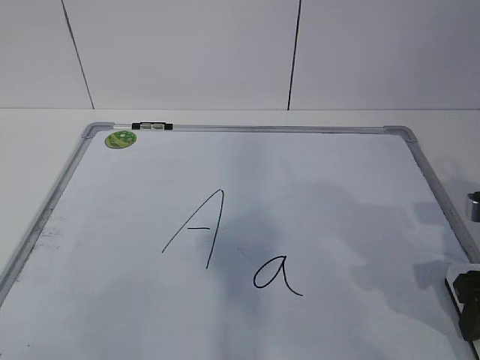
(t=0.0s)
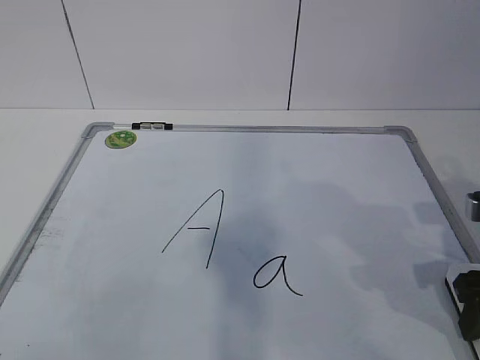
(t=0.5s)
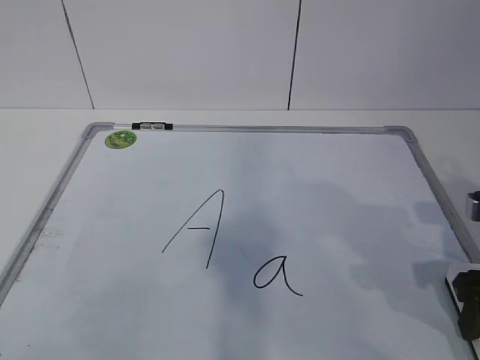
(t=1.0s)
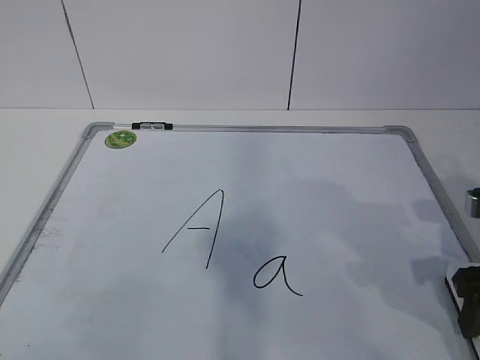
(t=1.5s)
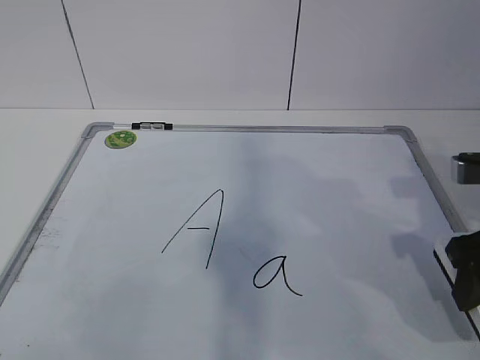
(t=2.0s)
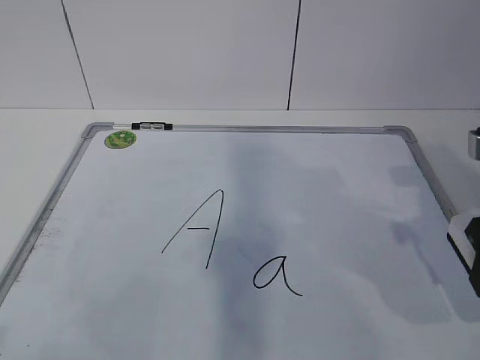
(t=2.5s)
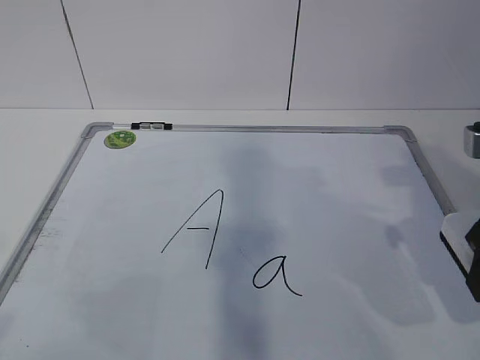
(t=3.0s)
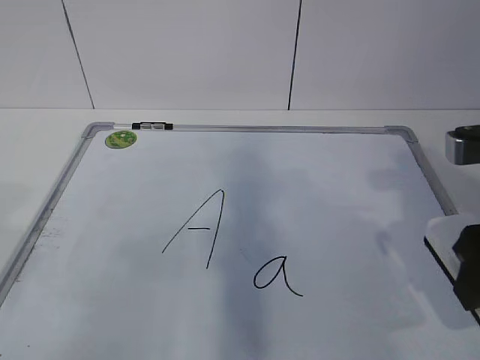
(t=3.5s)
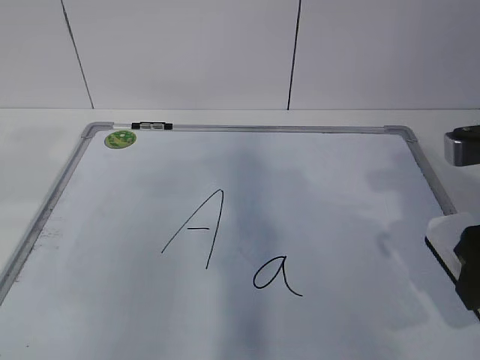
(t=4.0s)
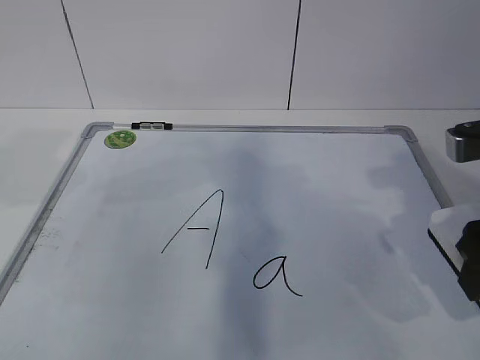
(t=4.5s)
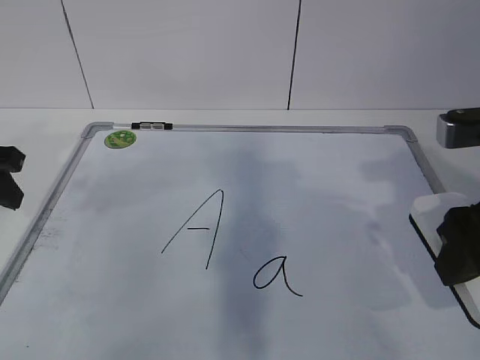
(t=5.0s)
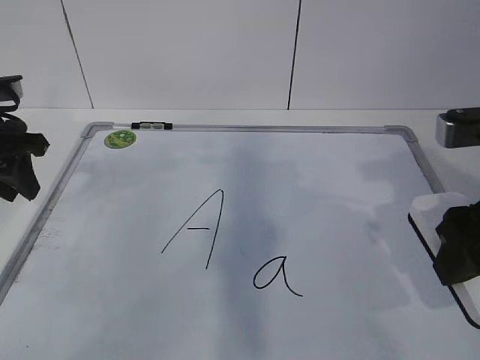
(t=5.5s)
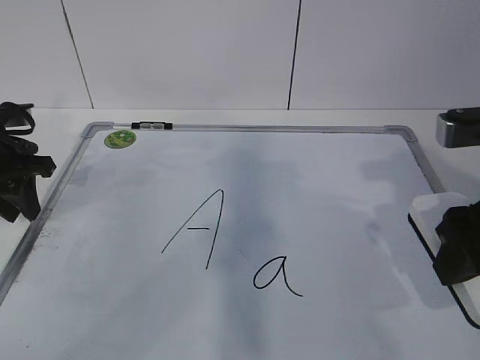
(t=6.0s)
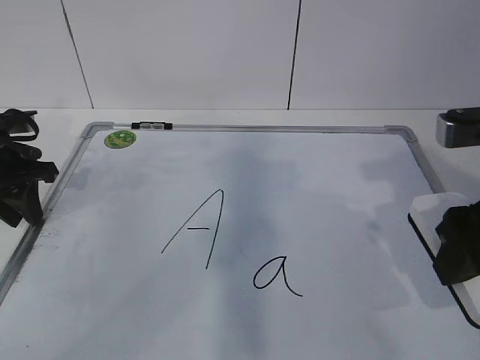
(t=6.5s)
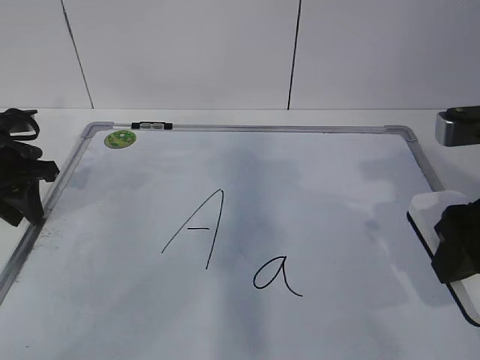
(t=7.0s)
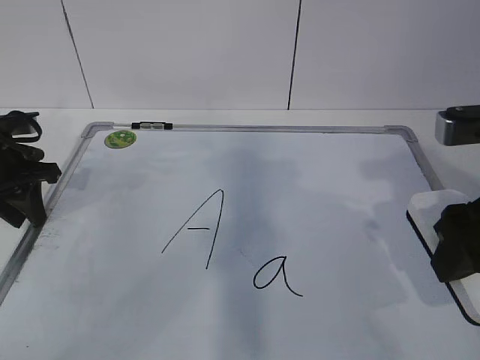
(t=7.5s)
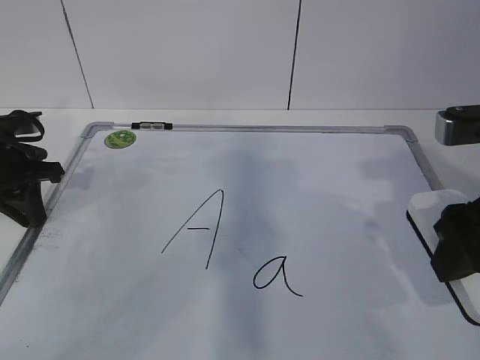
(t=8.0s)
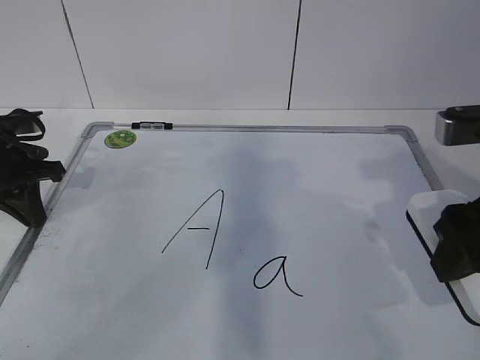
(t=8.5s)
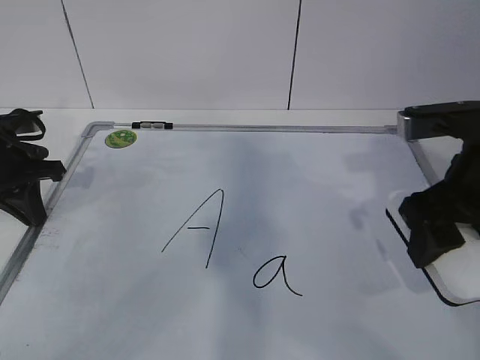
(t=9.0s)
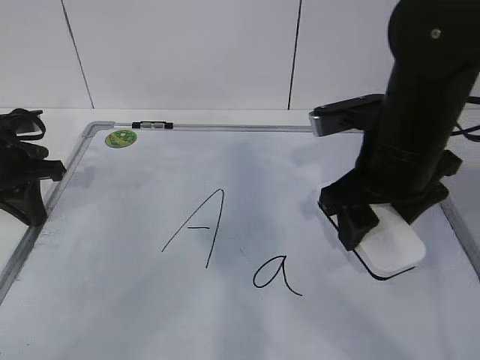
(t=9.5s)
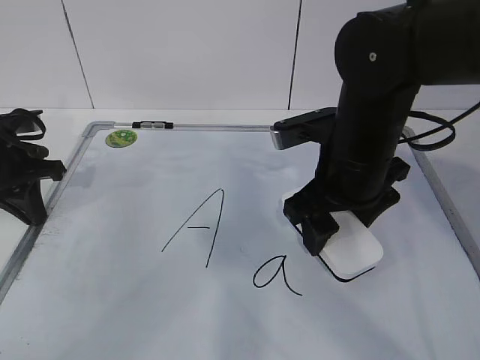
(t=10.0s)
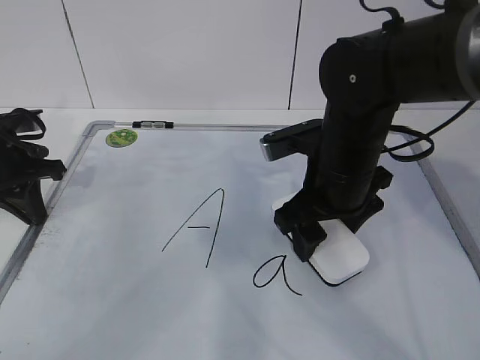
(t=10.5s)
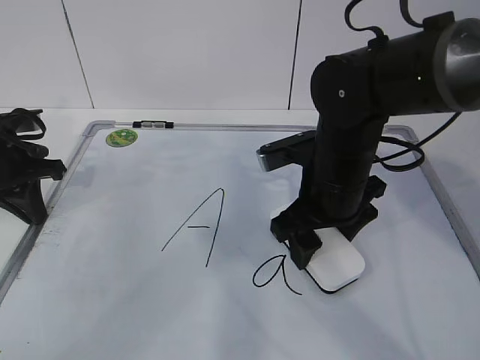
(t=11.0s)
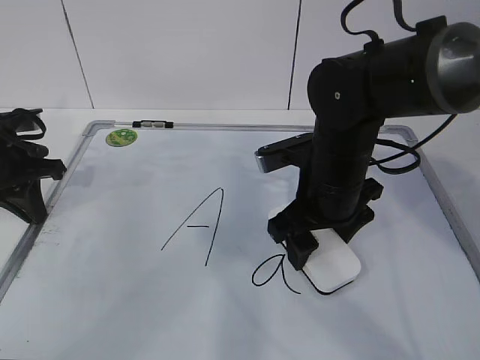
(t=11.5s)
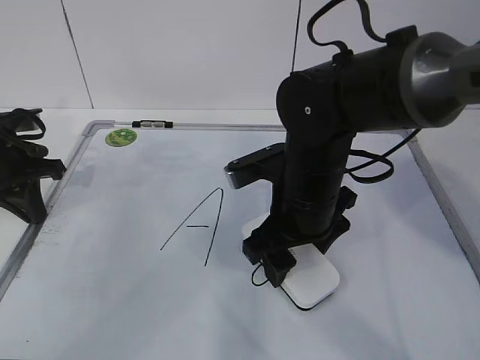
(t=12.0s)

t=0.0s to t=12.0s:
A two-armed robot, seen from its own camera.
Task of the whole recording: pick up the eraser on the blackboard and erase the letter "a".
Step, t=0.0s to t=5.0s: Hold the drawing board steady with your left hand.
Step, t=6.0s to t=10.5s: Erase the letter a with your right hand.
t=0.0s to t=2.0s: The grippers move only a little.
t=2.0s to t=4.0s: The right gripper ends up some 5 cm from where it was.
t=4.0s to t=6.0s: The left gripper moves forward and downward, roughly 25 cm.
t=6.0s to t=8.0s: The left gripper closes.
t=8.0s to t=10.0s: The right gripper travels to the left and forward by some 15 cm. Meanwhile the left gripper closes.
t=10.0s to t=12.0s: The right gripper shifts by some 5 cm.

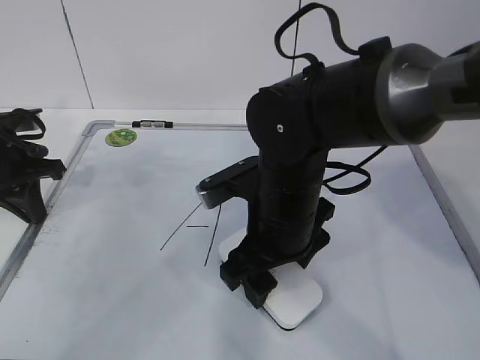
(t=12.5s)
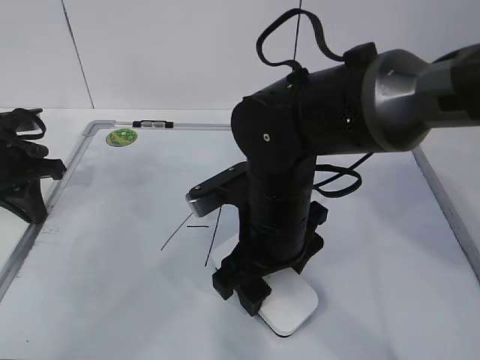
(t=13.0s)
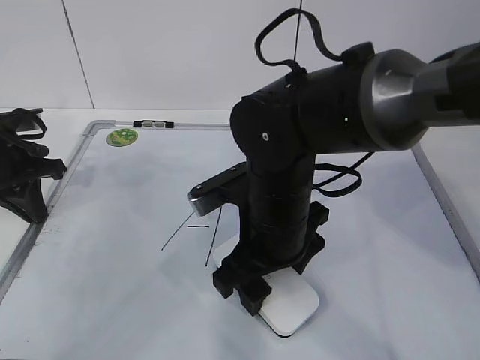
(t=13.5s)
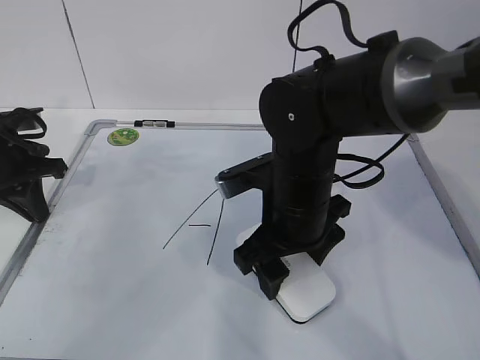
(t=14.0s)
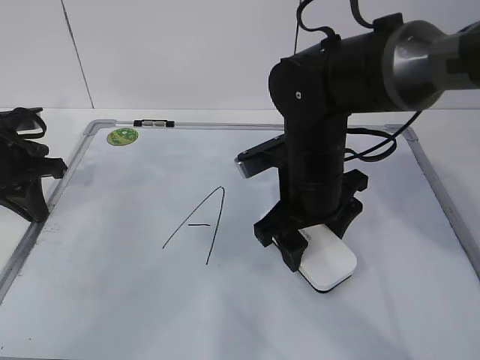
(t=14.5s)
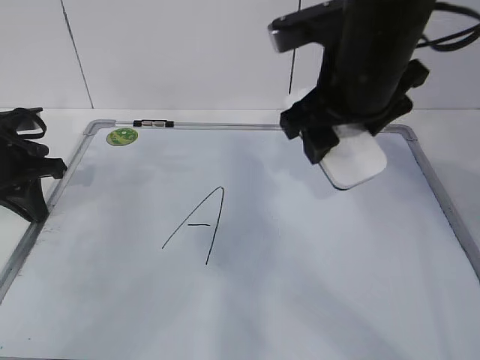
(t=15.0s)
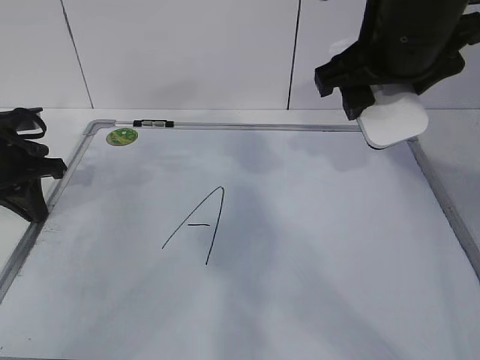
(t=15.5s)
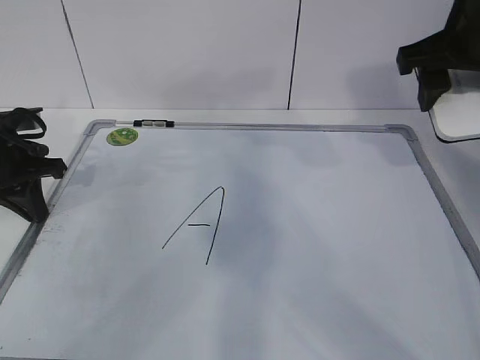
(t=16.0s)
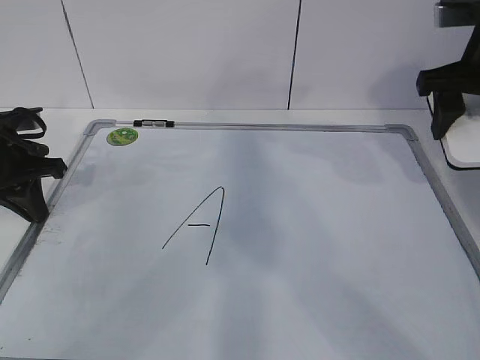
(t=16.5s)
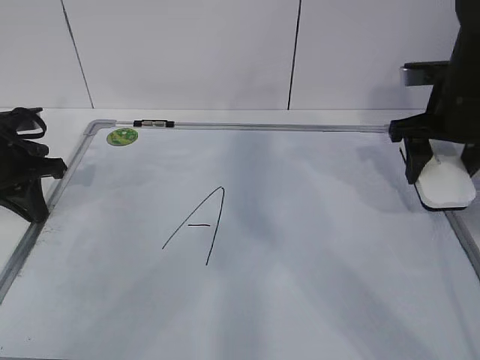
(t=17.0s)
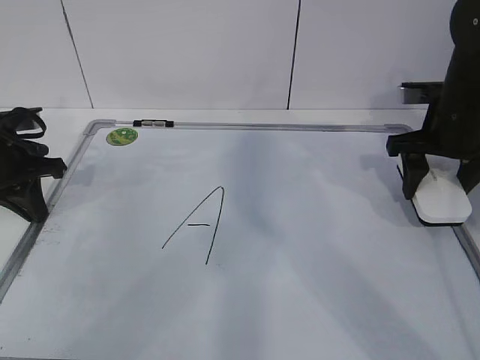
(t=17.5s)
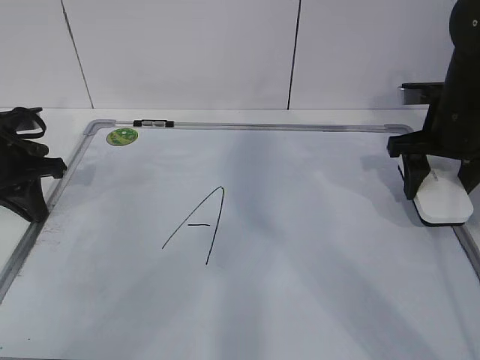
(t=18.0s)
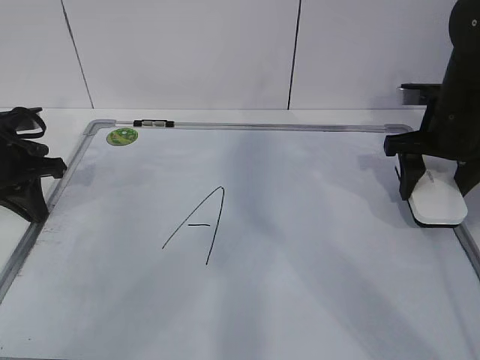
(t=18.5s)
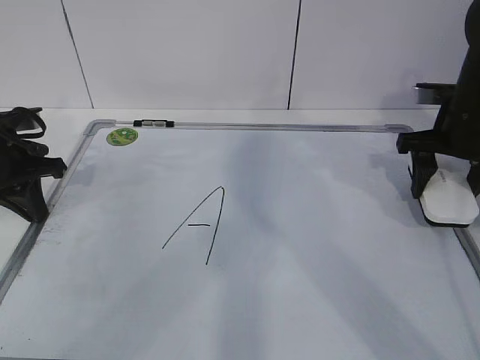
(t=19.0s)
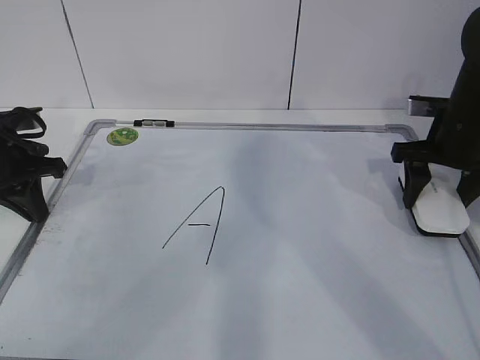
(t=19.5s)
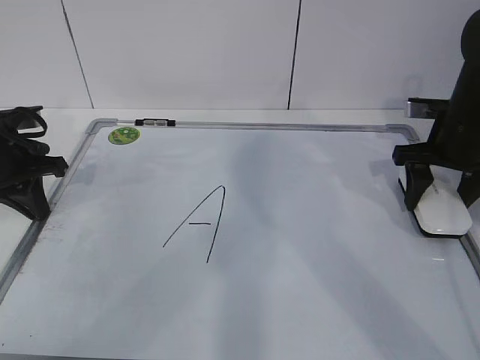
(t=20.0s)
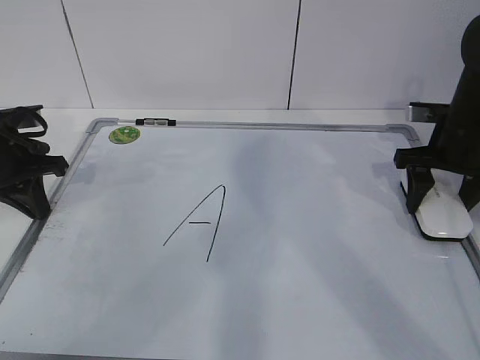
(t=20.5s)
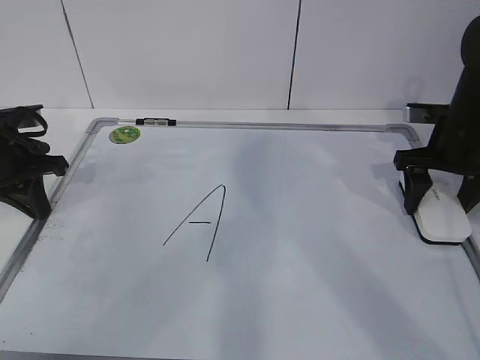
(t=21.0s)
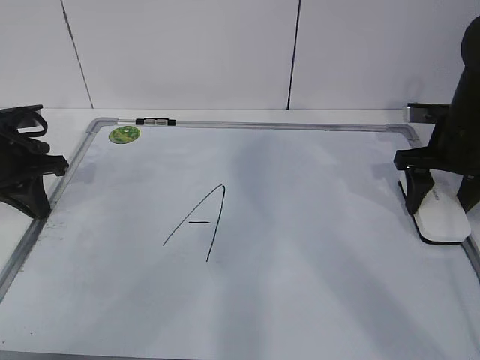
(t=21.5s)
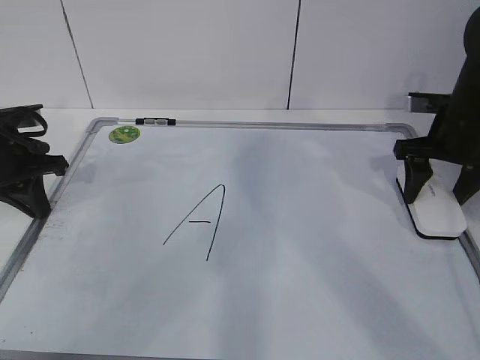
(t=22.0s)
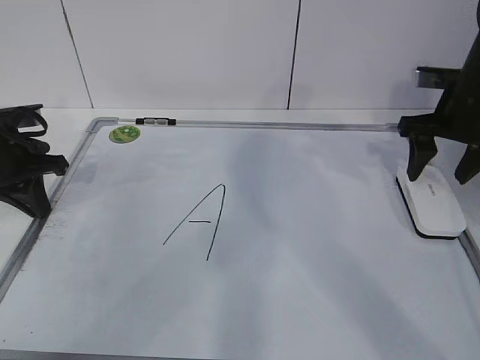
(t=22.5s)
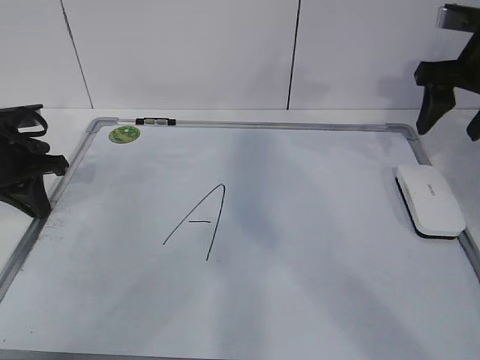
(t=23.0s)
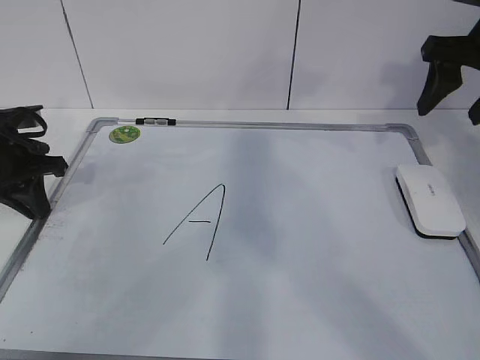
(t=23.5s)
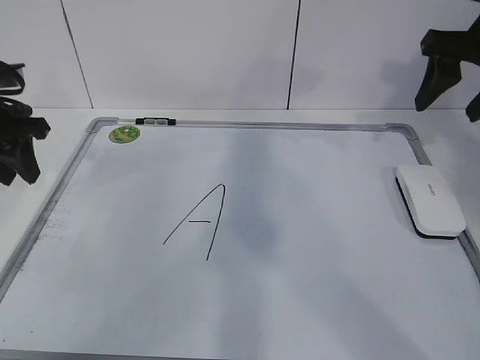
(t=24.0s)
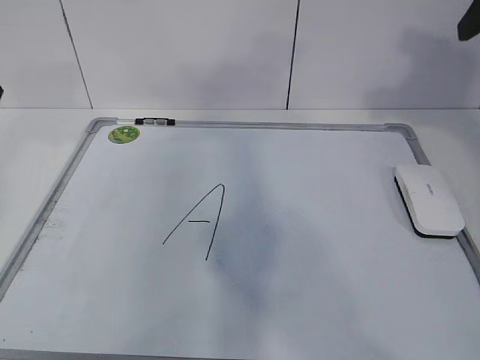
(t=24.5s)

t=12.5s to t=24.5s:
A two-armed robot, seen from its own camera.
Task of the whole recording: pick up the eraser on the blackboard and erase the letter "a".
Step, t=12.5s to t=16.0s: Put down the eraser with your right hand.
t=12.5s to t=14.5s: The right gripper changes place by some 5 cm.
t=14.5s to t=16.5s: The right gripper travels to the right and upward by some 20 cm.
t=16.5s to t=18.5s: The right gripper shifts some 10 cm downward.
t=18.5s to t=22.5s: The grippers stay close to where they were, moving slightly.
t=22.5s to t=24.5s: The right gripper shifts roughly 20 cm upward and backward; the left gripper travels upward by some 20 cm, and opens its fingers.

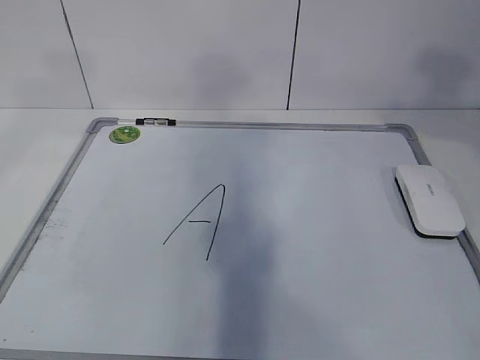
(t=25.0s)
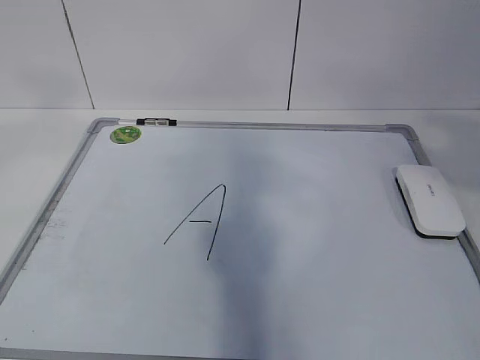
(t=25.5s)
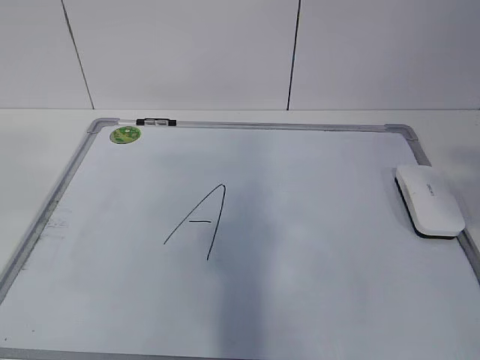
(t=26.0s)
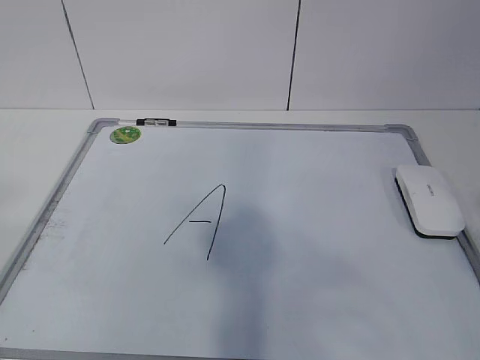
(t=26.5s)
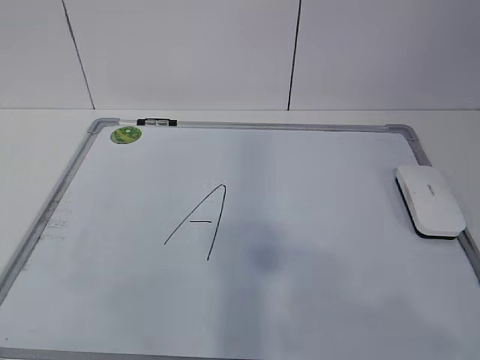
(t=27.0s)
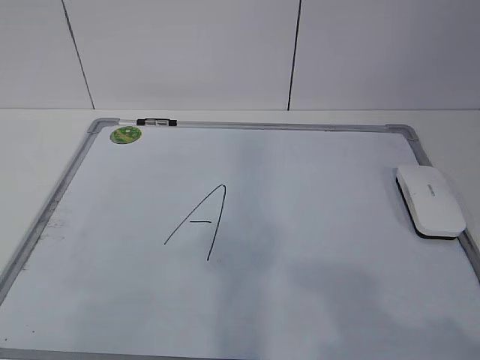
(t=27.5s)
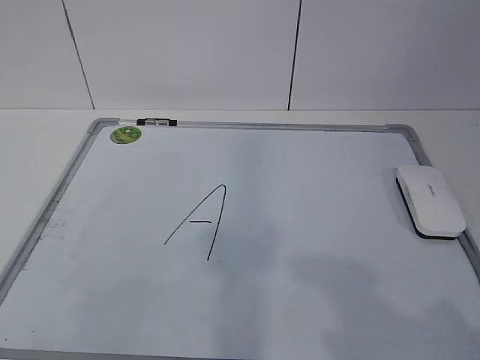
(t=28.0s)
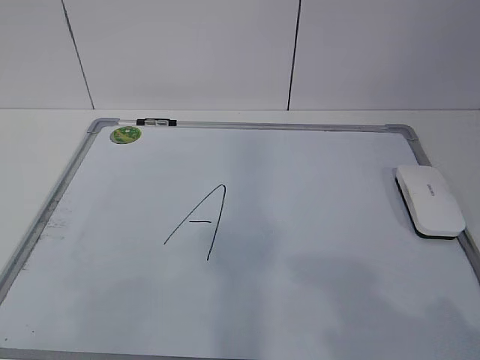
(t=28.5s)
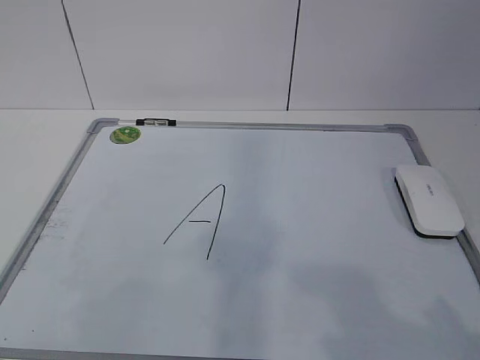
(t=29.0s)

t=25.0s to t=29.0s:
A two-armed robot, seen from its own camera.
Task of the whole recording: pick up the eraser on the blackboard and erase the letter "a".
t=25.0s to t=27.0s: The right gripper heads backward and downward, covering some 25 cm; the left gripper shifts some 25 cm backward.
